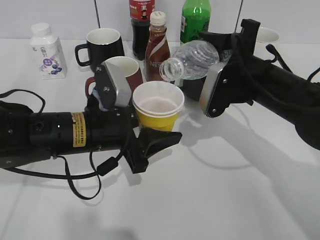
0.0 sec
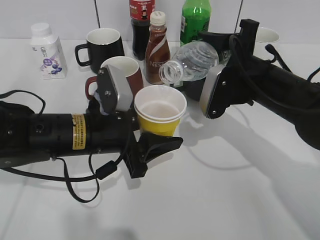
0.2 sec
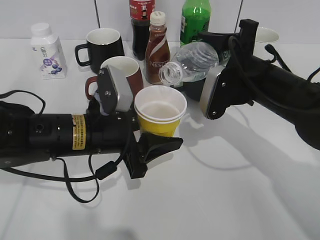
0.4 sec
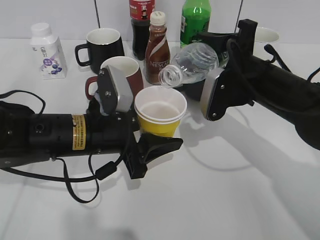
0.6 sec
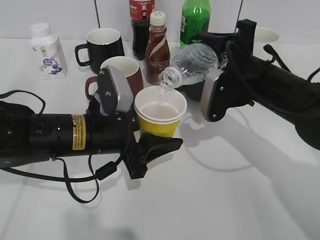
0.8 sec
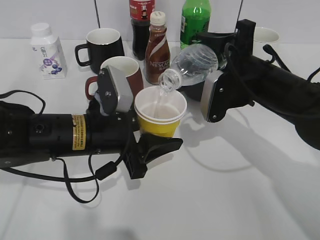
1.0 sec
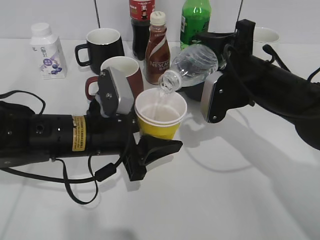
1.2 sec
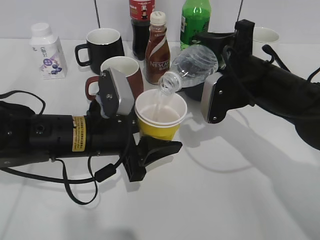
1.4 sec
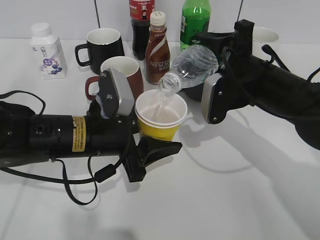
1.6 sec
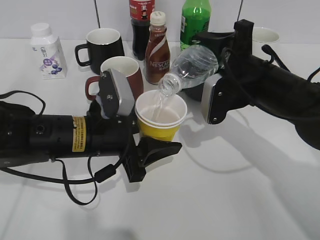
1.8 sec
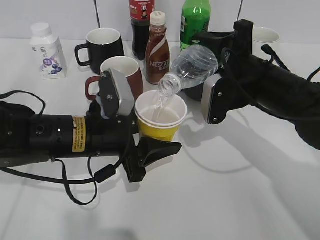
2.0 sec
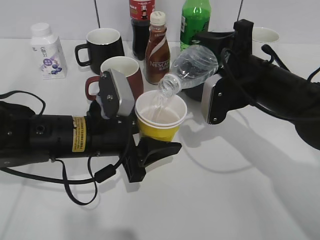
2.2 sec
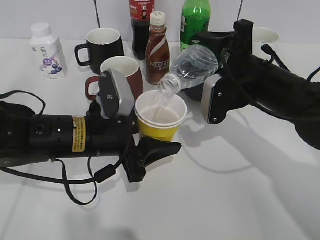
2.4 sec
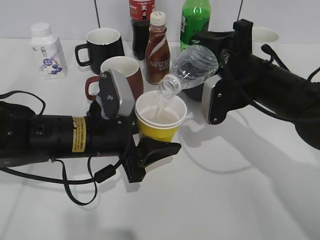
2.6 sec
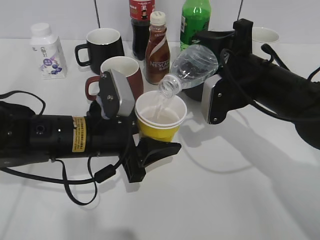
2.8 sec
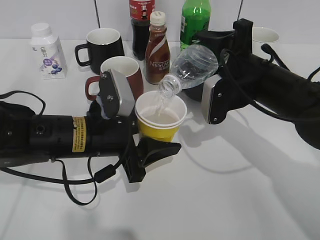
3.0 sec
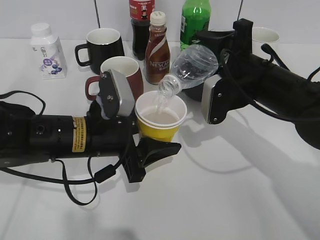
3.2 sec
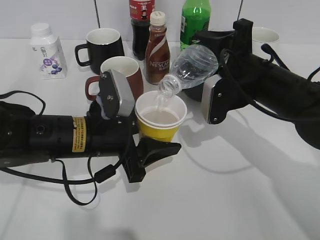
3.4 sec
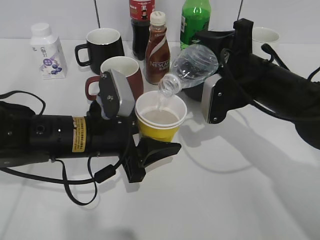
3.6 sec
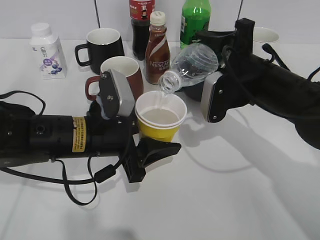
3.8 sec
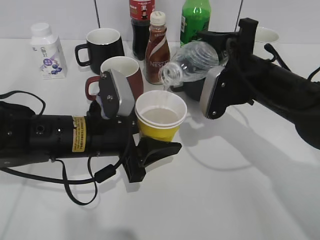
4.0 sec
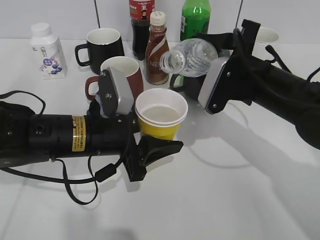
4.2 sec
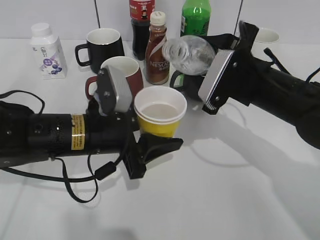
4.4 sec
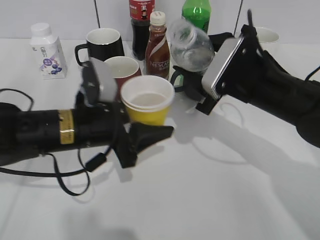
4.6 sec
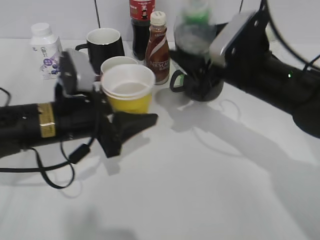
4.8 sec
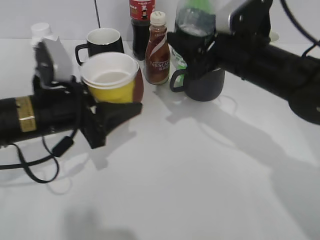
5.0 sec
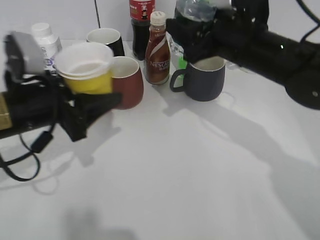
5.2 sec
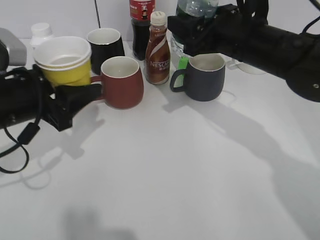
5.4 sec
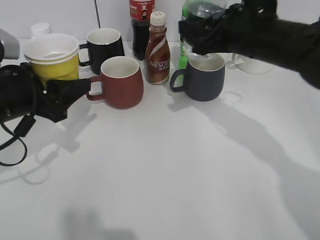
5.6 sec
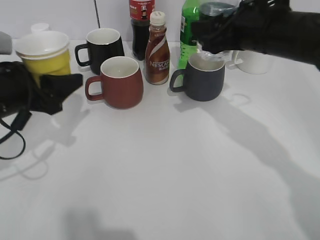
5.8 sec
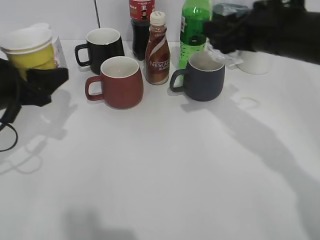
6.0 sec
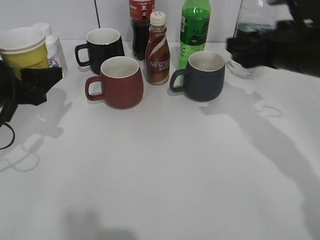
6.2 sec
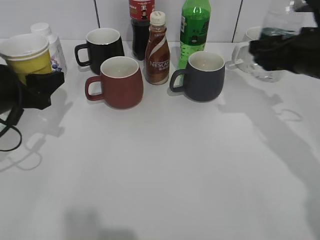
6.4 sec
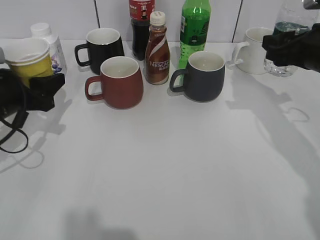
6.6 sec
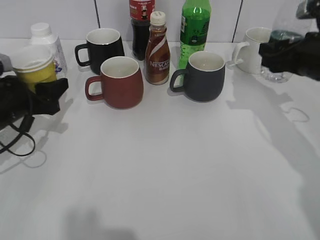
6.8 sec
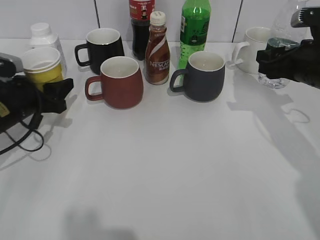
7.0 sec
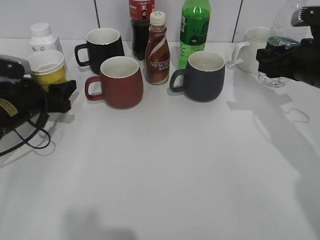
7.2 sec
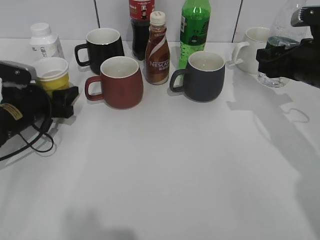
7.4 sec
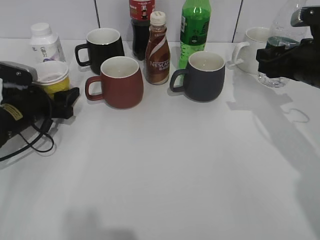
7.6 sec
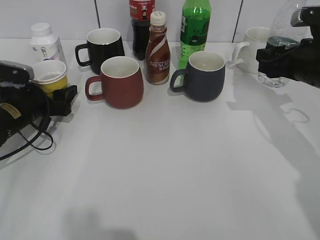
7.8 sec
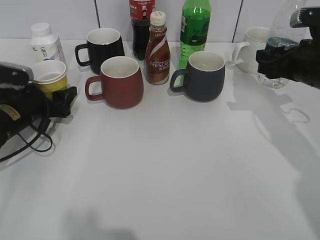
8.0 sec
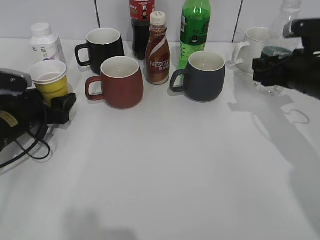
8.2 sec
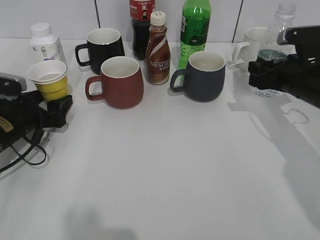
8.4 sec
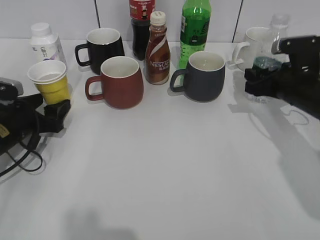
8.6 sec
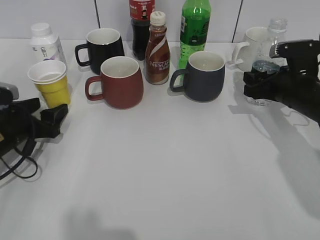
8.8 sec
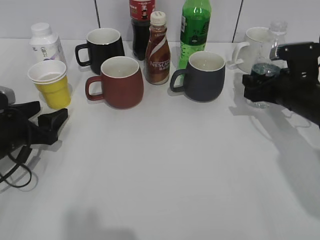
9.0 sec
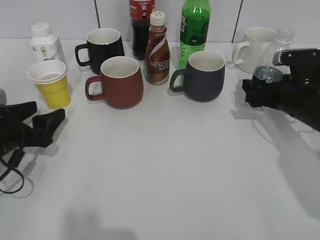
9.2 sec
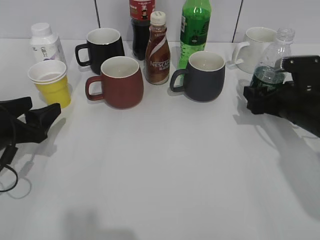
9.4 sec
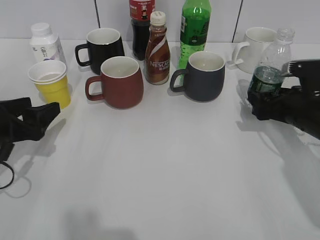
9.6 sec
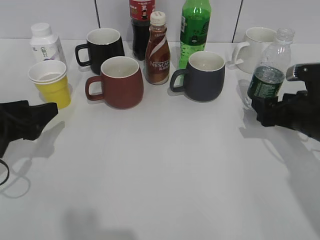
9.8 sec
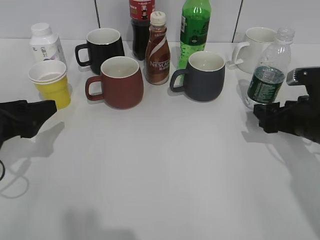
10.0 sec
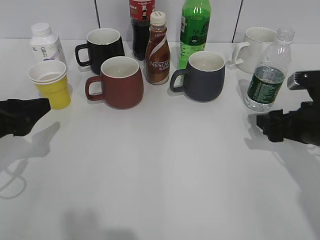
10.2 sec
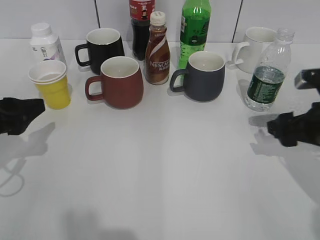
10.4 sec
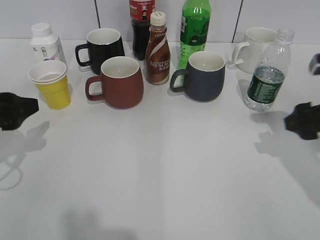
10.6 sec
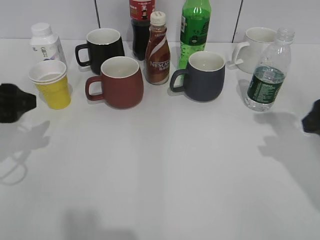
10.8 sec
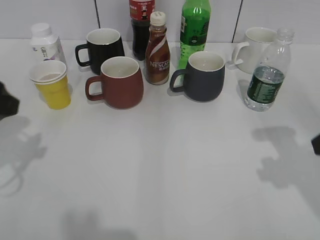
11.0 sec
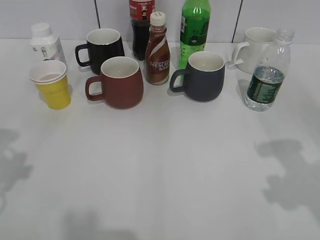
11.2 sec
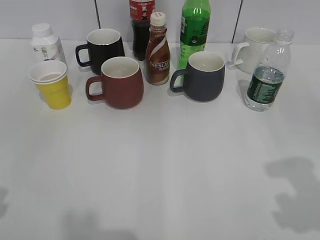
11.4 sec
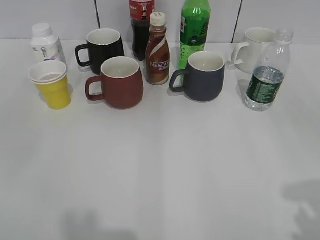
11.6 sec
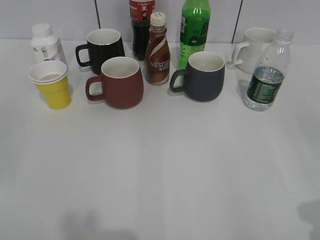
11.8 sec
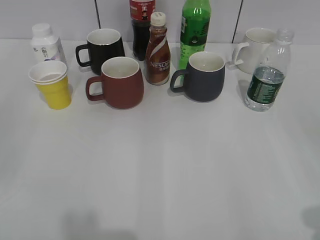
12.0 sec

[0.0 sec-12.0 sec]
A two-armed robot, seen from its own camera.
Step, 0.0 sec to 4.4 sec: Pour the water from bottle to cup with right gripper.
Step, 4.8 sec to 8.2 sec: Place the yellow paper cup on the table with left gripper.
Step, 8.4 sec to 9.8 sec: Place the water bottle on the table with right gripper.
0.0 sec to 1.6 sec: The grippers stay close to where they were, moving slightly.
1.6 sec to 3.0 sec: The two grippers keep their place.
4.4 sec to 6.0 sec: The left gripper shifts some 15 cm to the left. The right gripper travels upward by about 5 cm.
6.0 sec to 7.6 sec: The right gripper moves to the right and downward, roughly 10 cm. The left gripper is displaced downward and forward by approximately 15 cm, and opens up.
7.6 sec to 9.0 sec: The left gripper shifts approximately 5 cm backward, and opens its fingers. The right gripper moves downward, approximately 5 cm.
9.0 sec to 10.4 sec: The left gripper shifts roughly 10 cm upward and backward. The right gripper travels backward by about 10 cm, and opens its fingers.
10.4 sec to 12.0 sec: Both grippers travel together backward and upward, about 25 cm.

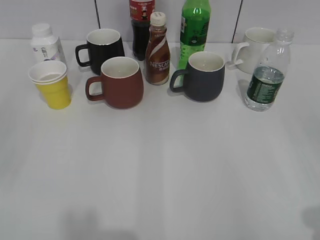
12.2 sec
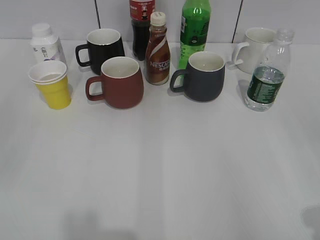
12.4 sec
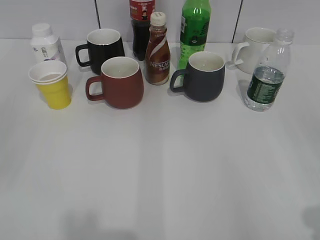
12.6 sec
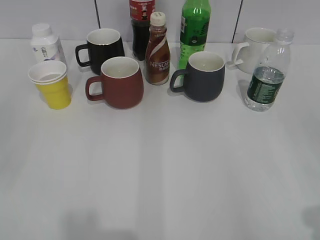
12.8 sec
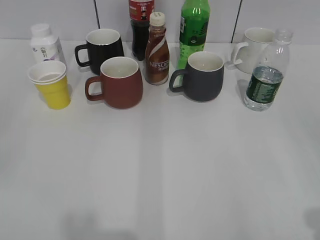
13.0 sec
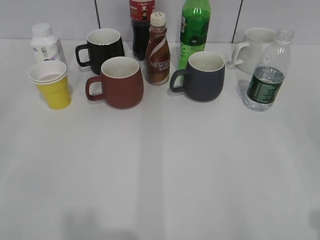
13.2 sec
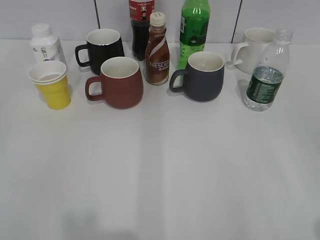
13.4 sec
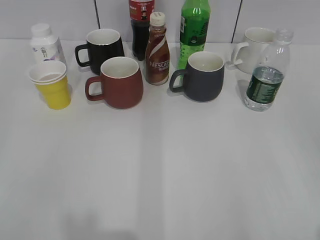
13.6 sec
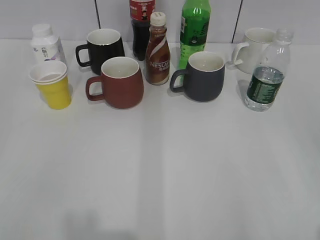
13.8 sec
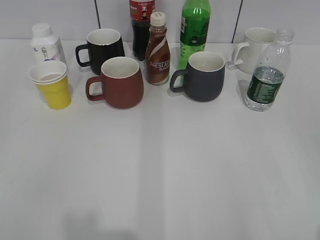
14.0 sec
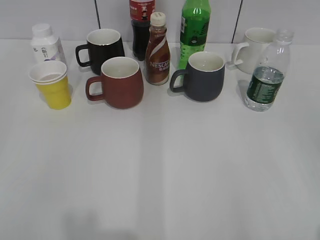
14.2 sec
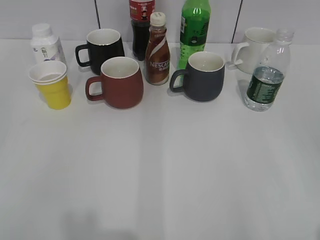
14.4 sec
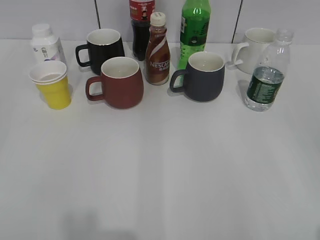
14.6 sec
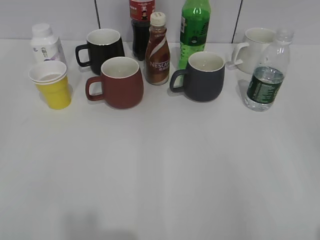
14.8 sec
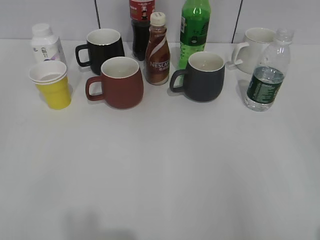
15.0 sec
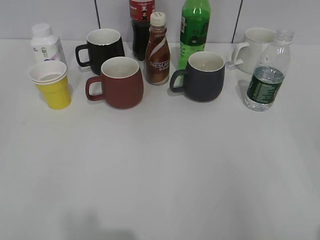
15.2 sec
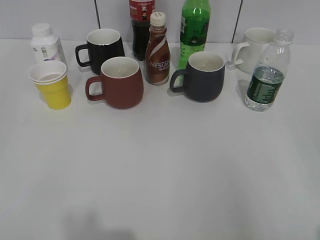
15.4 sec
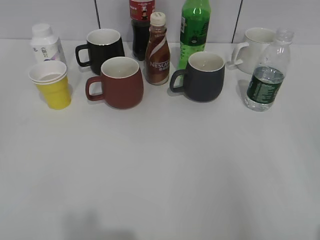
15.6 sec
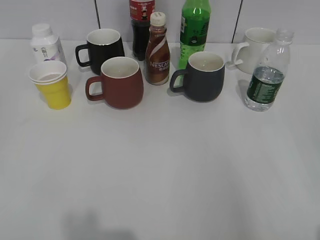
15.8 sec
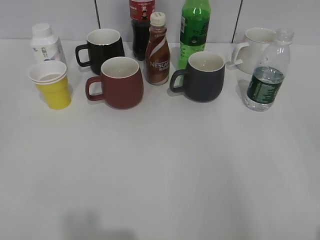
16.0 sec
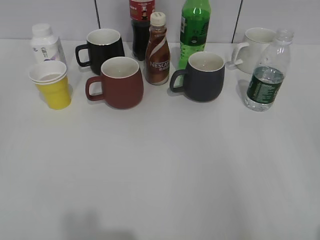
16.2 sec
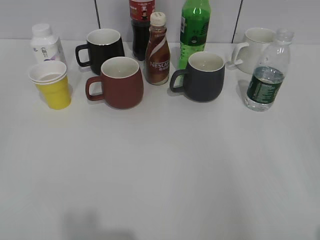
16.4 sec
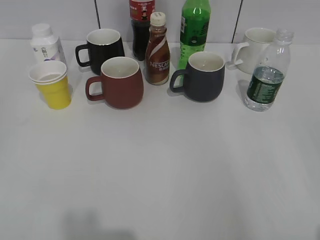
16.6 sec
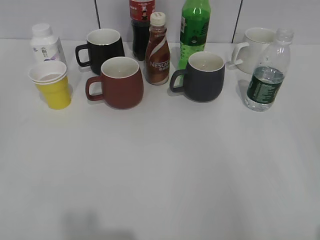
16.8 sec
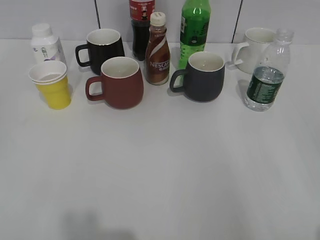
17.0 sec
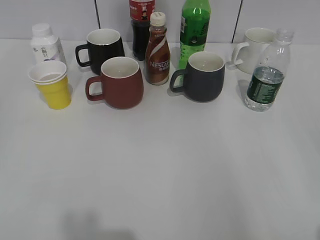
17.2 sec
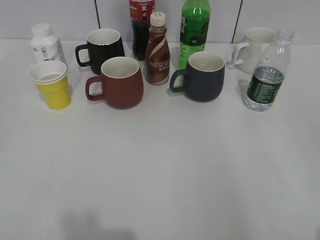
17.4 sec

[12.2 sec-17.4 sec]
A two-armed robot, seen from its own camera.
14.0 sec to 17.4 sec: The two grippers keep their place.
